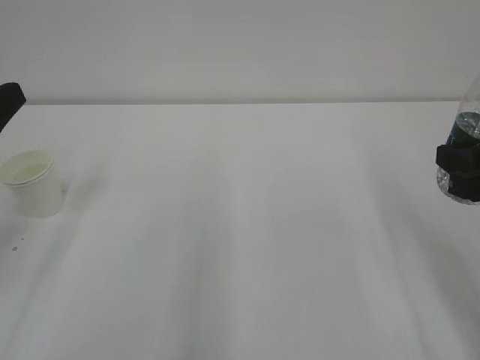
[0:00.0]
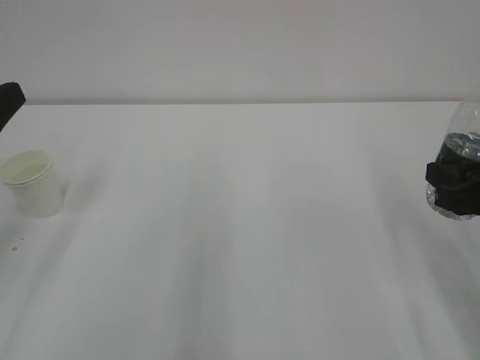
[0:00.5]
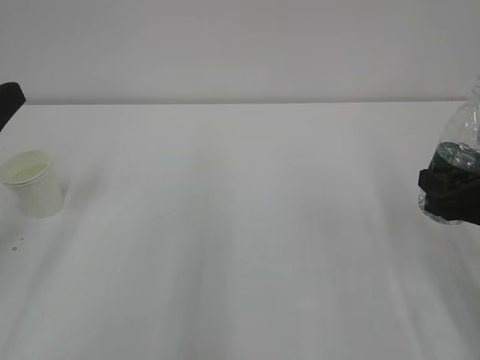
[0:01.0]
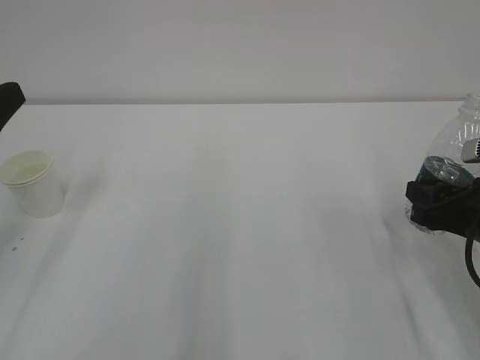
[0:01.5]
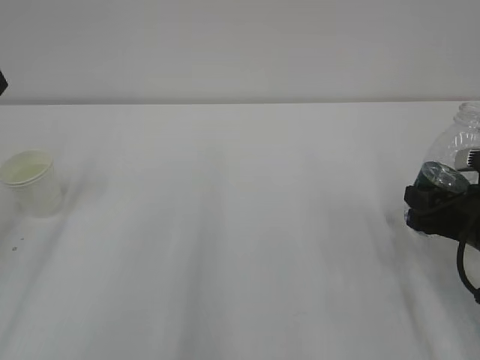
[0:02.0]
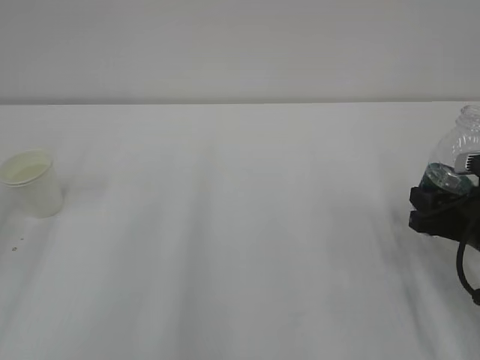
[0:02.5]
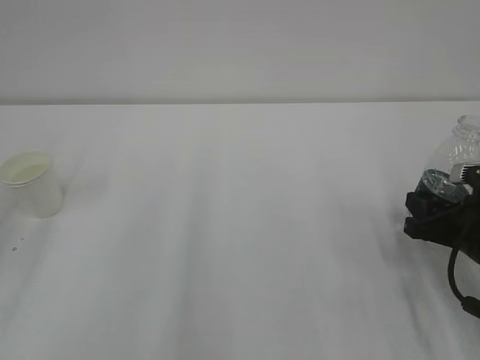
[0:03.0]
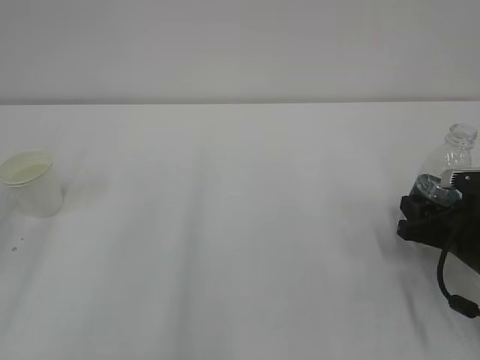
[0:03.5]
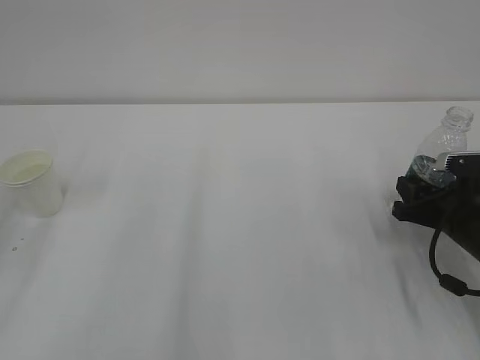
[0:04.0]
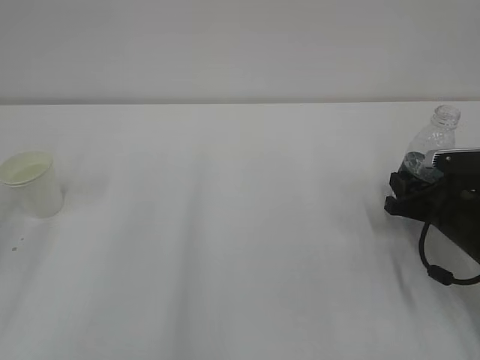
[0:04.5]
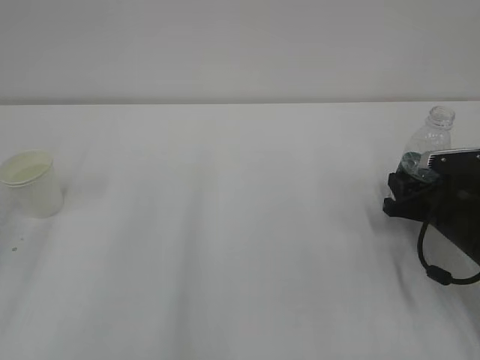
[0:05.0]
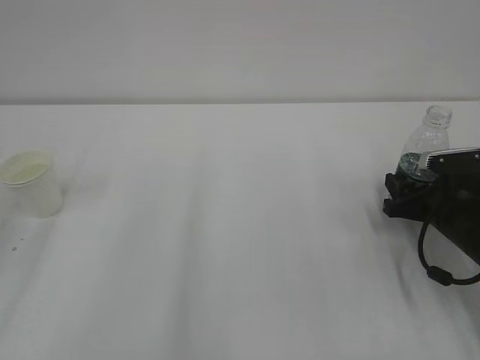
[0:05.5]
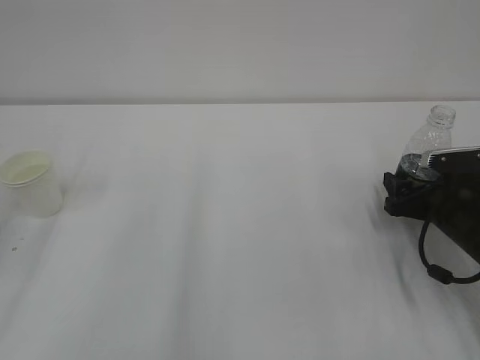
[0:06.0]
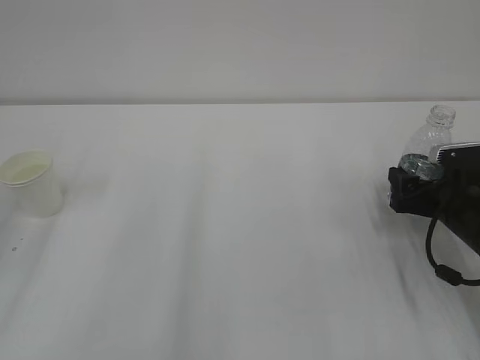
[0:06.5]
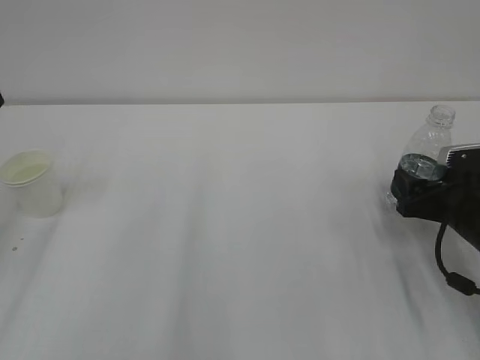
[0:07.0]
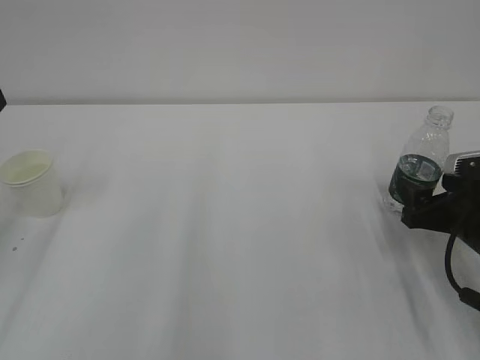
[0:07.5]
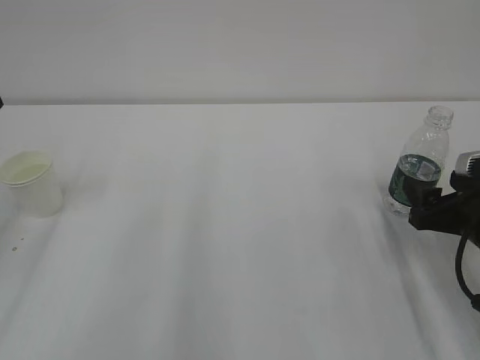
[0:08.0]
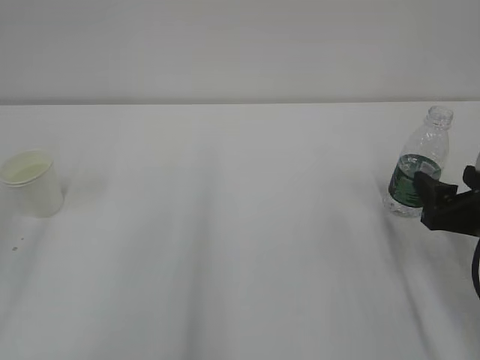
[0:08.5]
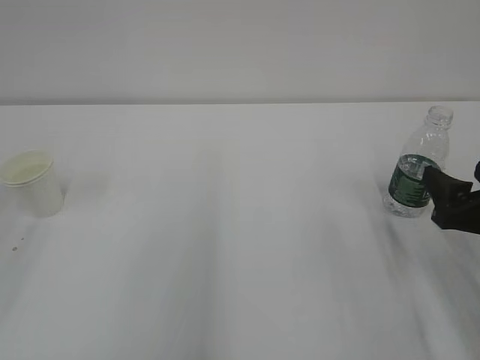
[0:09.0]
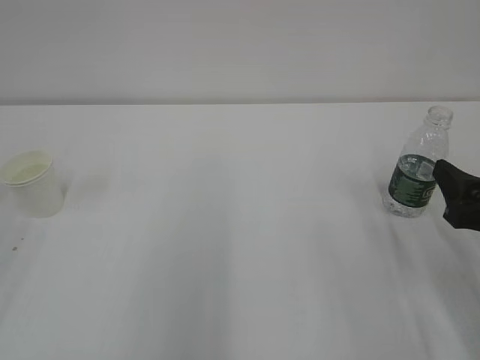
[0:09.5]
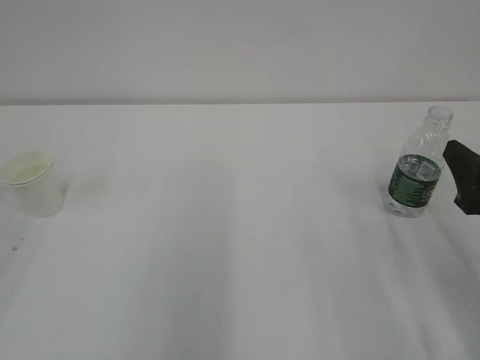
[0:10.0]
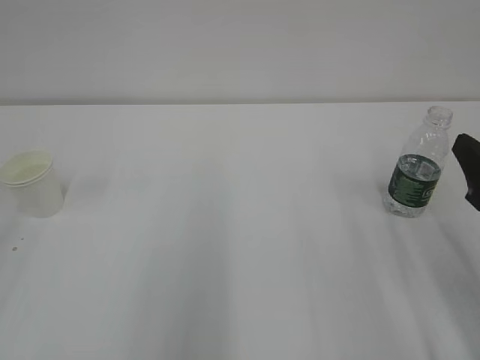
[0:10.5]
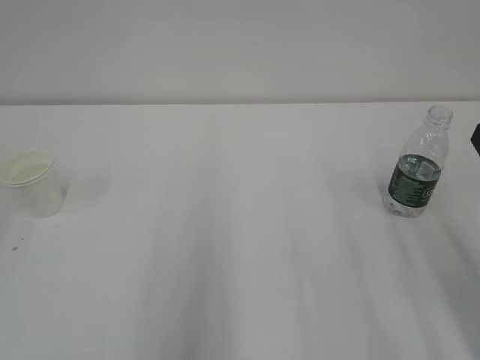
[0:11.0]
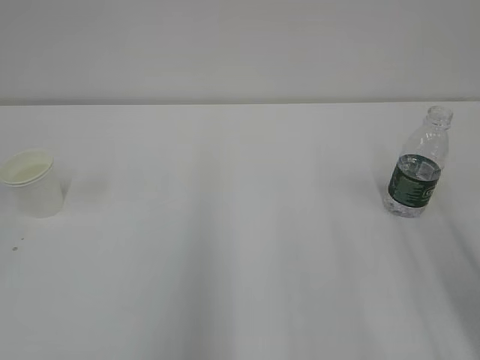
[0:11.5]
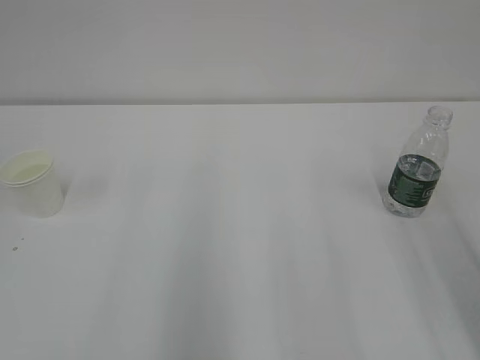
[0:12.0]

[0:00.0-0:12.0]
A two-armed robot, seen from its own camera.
0:00.0 to 0:02.0: The right gripper shifts roughly 10 cm downward.
0:02.0 to 0:04.0: The right gripper shifts by some 5 cm.
0:04.0 to 0:06.0: The right gripper opens its fingers.
0:06.0 to 0:08.0: The right gripper shifts about 5 cm backward.
0:08.0 to 0:10.0: The right gripper moves upward and backward, about 10 cm.
0:10.0 to 0:12.0: The right gripper shifts roughly 10 cm upward and backward.

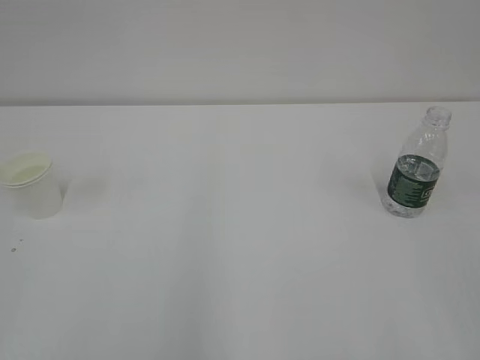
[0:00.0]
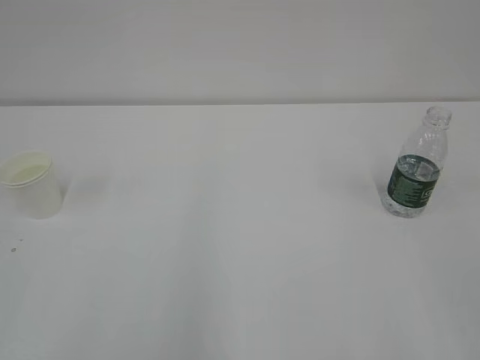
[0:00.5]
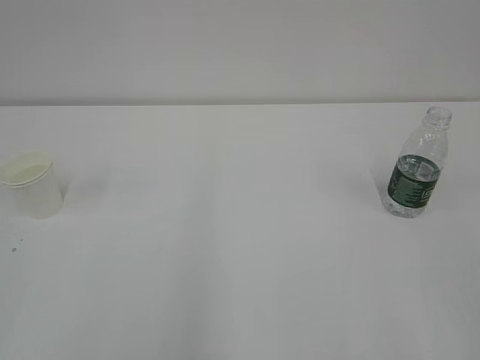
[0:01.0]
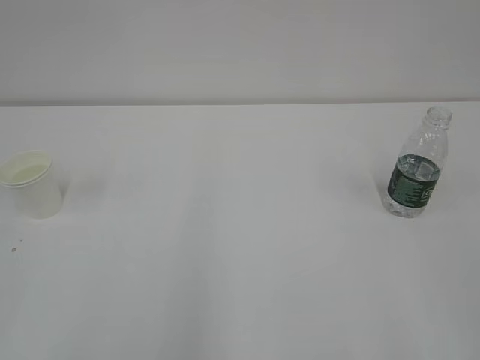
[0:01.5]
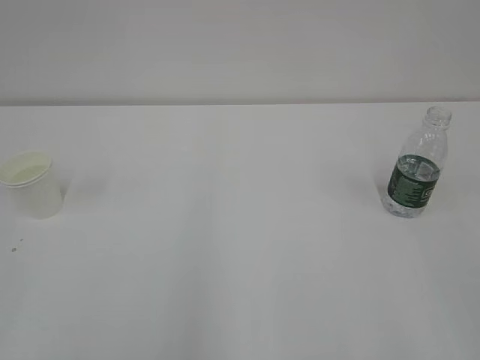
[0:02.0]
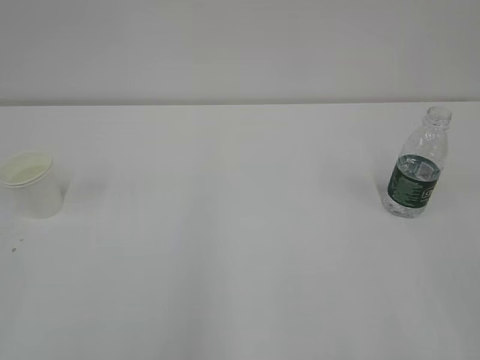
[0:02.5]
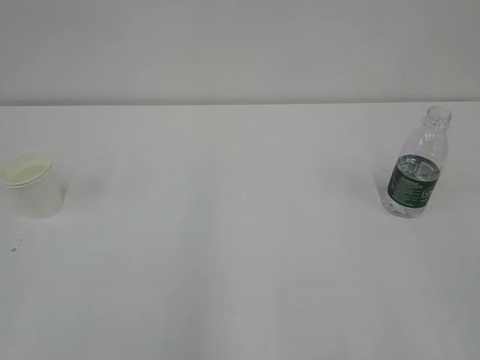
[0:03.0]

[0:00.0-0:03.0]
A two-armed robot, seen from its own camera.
0:00.0 to 0:03.0: Neither gripper changes place.
